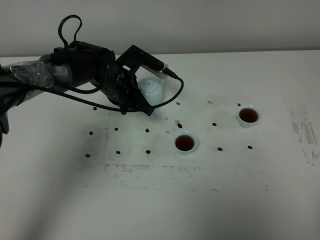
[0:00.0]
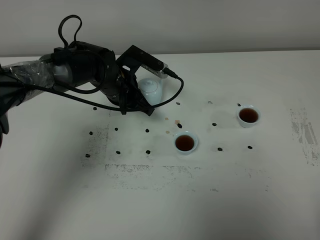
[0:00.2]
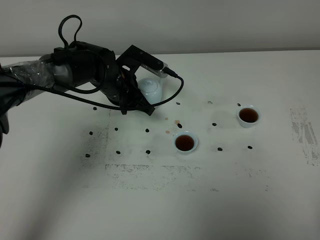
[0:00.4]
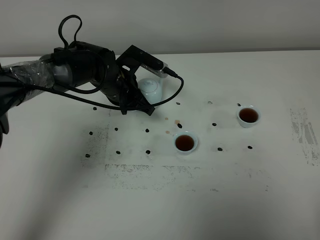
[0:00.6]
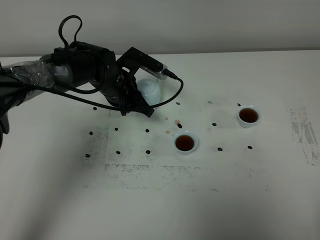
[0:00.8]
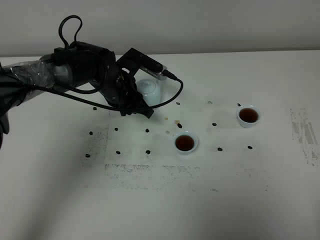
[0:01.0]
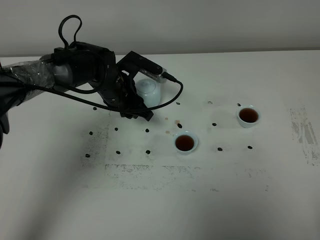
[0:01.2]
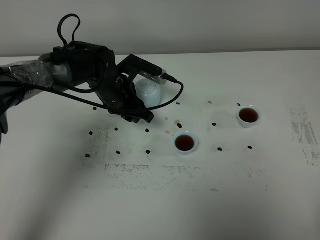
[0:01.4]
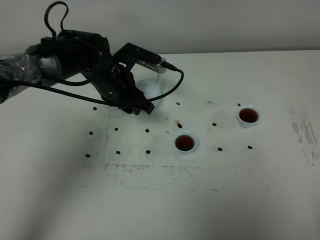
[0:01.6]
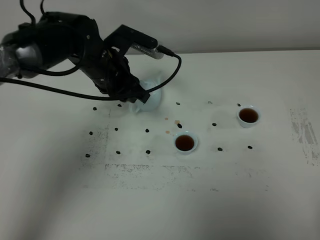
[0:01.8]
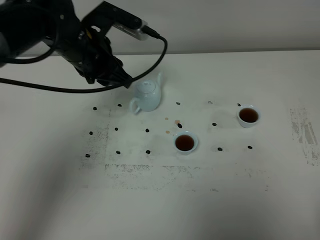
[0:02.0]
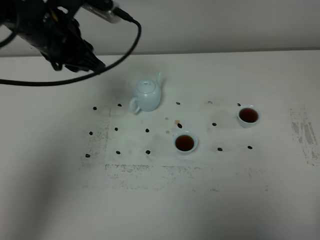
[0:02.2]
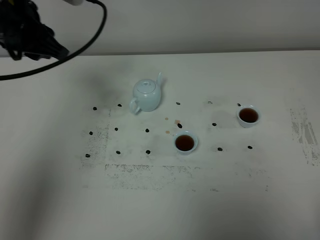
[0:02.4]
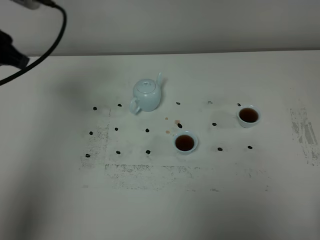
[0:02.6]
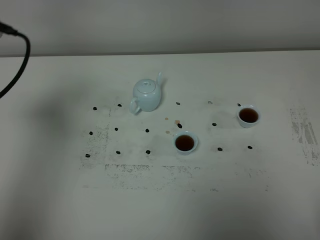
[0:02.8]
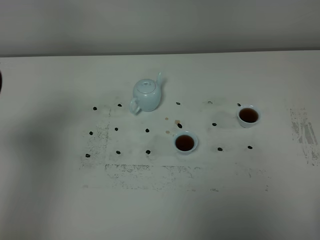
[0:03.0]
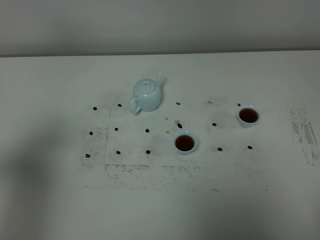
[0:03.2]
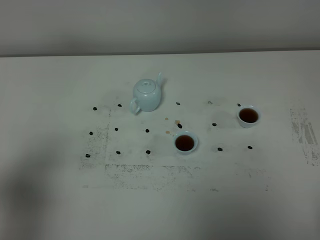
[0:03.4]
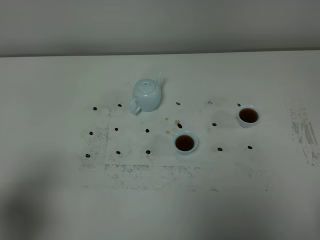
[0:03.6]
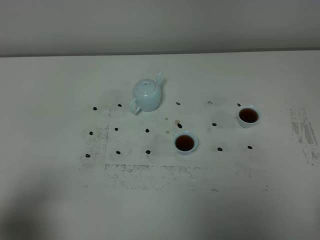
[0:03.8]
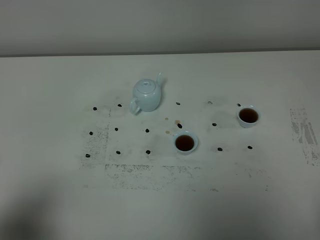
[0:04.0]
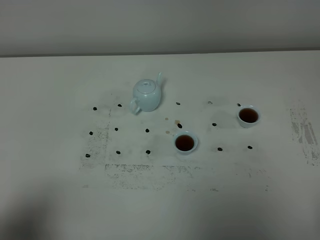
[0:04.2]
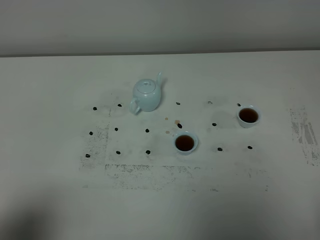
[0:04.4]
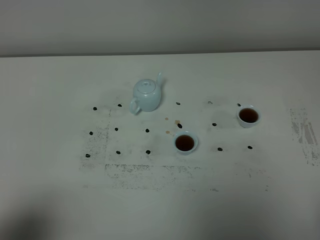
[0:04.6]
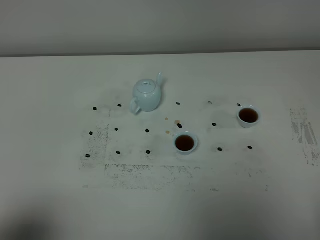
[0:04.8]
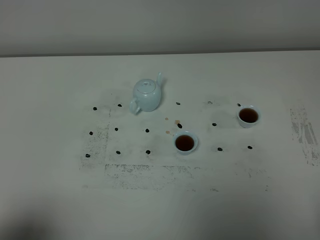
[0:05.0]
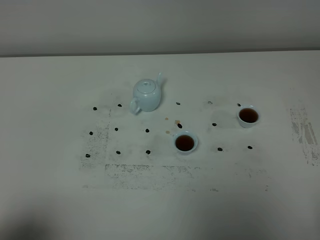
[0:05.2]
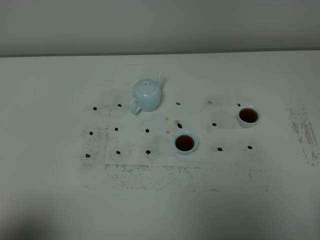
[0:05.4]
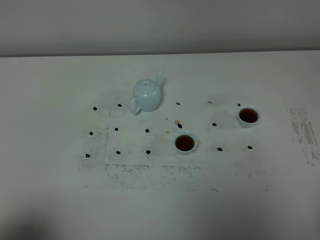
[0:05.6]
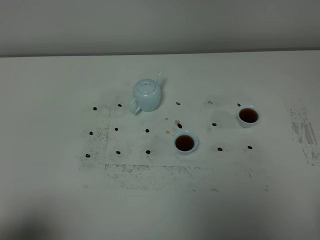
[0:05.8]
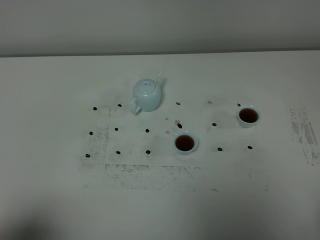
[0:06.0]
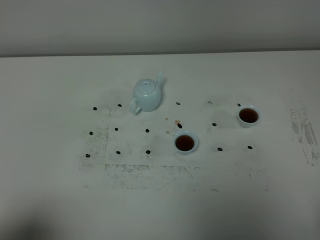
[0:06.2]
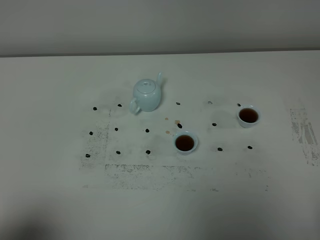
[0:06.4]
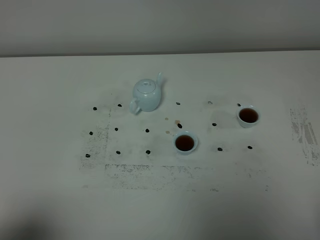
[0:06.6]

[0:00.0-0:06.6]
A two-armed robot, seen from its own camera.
Task of the whole recording: grasp the blue porcelain teapot and pour the tea into the two blue porcelain teacups one by one, put the blue porcelain teapot back in its original place.
0:00.0 to 0:01.6: The left gripper opens up.
0:01.6 to 0:03.2: The left gripper goes roughly 35 cm backward, to the left and upward.
0:03.2 to 0:05.0: The left gripper is displaced backward by roughly 15 cm.
0:05.0 to 0:06.6: Both grippers stay about where they are.

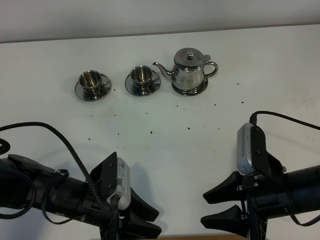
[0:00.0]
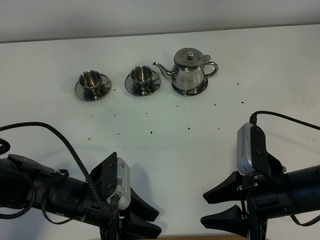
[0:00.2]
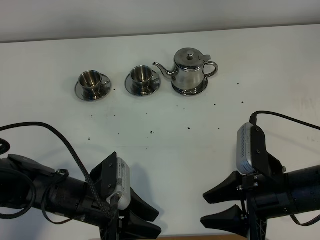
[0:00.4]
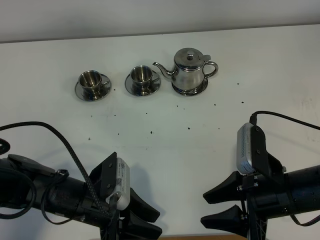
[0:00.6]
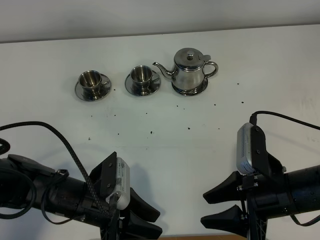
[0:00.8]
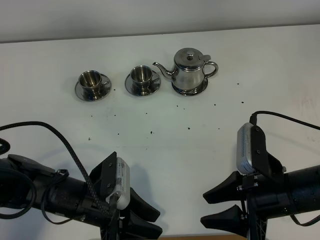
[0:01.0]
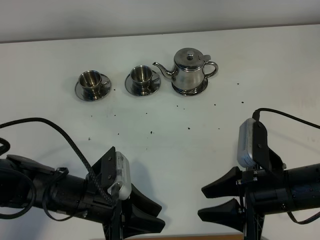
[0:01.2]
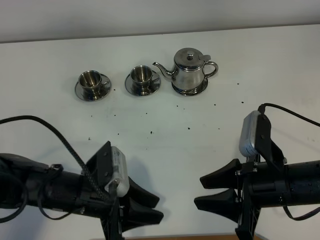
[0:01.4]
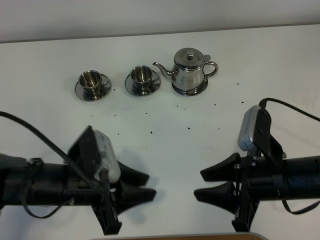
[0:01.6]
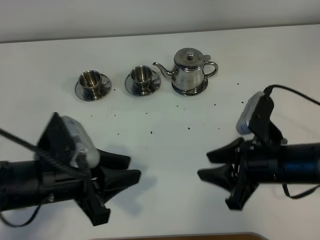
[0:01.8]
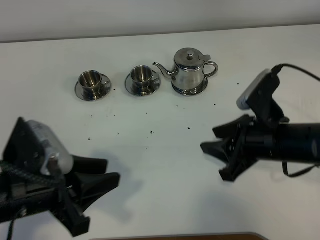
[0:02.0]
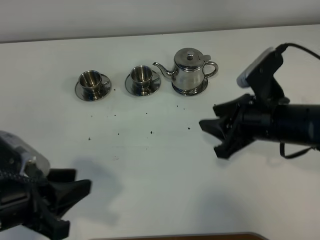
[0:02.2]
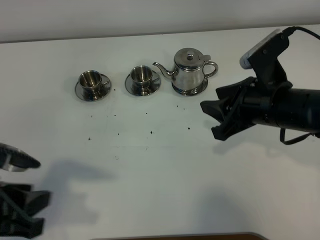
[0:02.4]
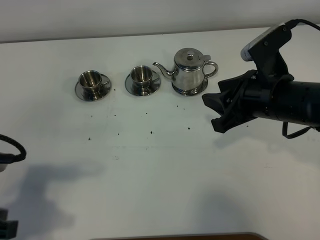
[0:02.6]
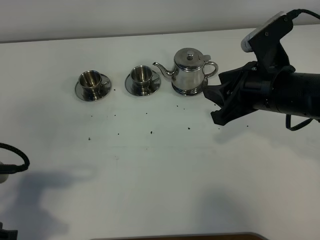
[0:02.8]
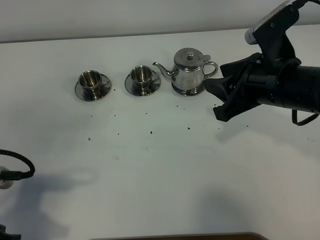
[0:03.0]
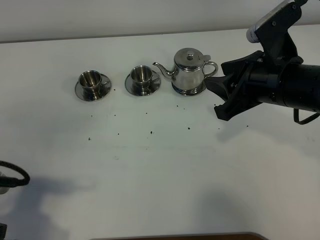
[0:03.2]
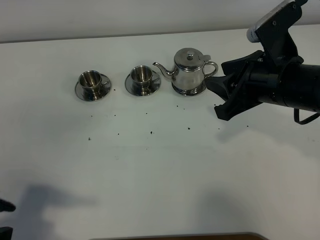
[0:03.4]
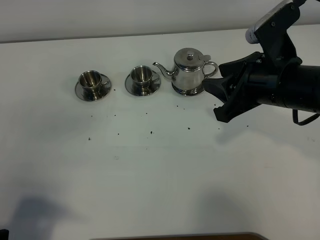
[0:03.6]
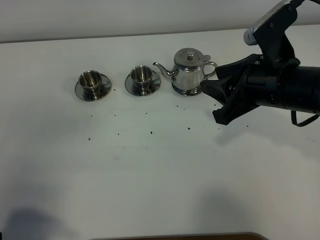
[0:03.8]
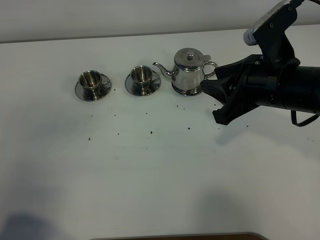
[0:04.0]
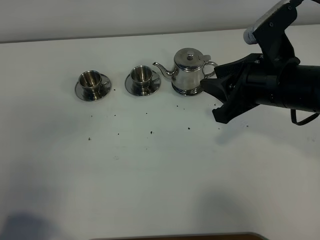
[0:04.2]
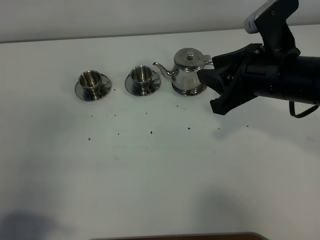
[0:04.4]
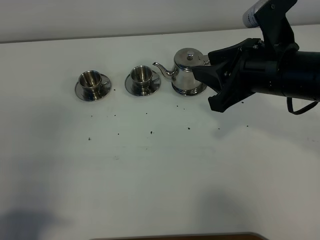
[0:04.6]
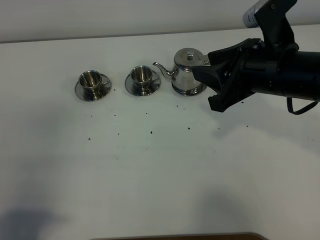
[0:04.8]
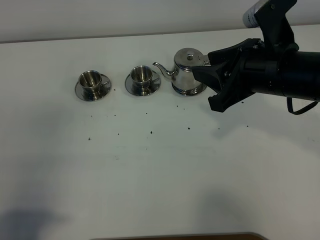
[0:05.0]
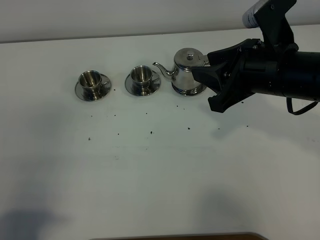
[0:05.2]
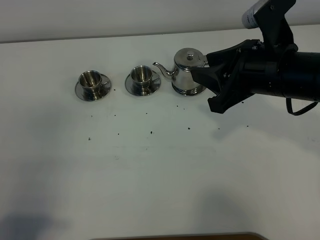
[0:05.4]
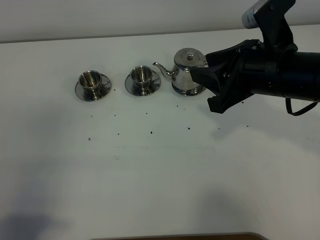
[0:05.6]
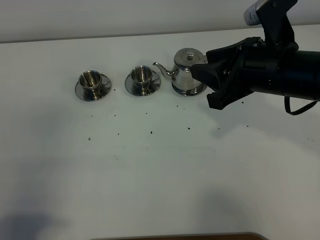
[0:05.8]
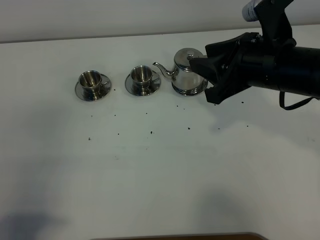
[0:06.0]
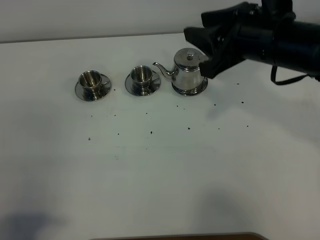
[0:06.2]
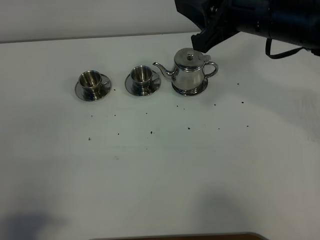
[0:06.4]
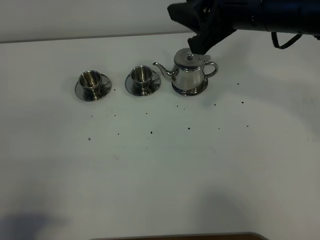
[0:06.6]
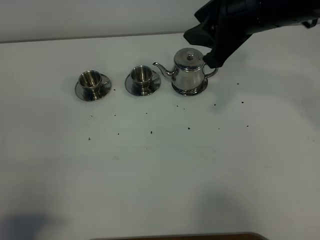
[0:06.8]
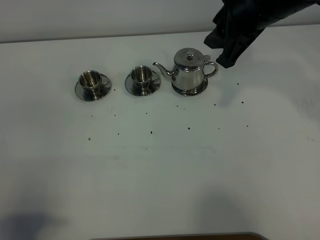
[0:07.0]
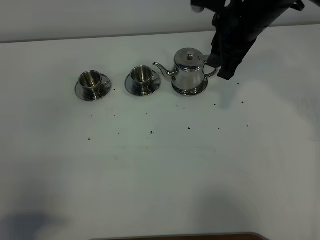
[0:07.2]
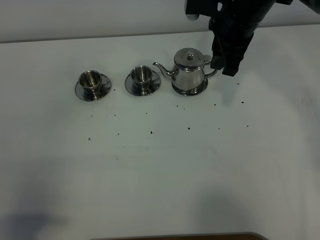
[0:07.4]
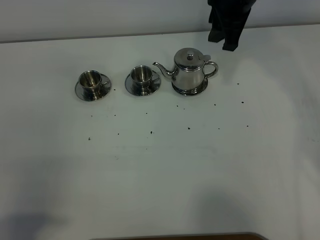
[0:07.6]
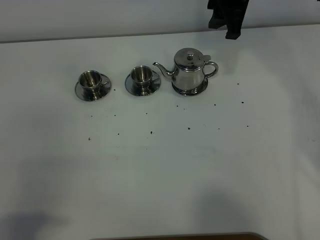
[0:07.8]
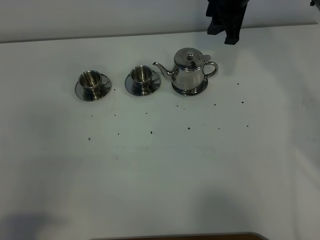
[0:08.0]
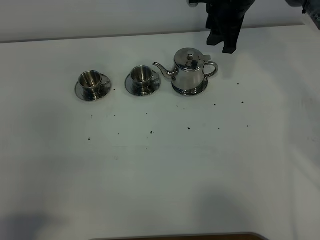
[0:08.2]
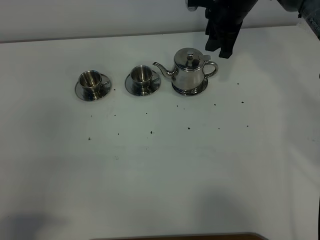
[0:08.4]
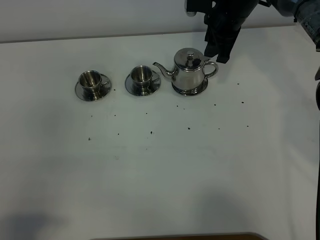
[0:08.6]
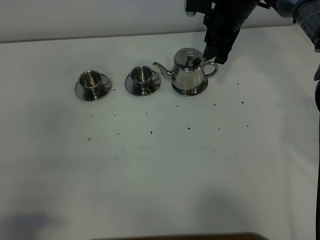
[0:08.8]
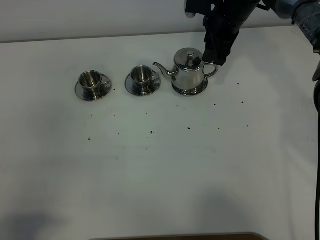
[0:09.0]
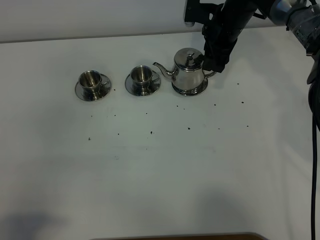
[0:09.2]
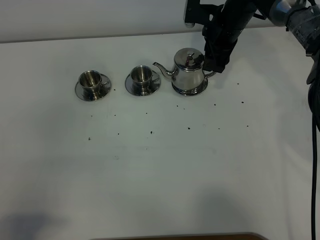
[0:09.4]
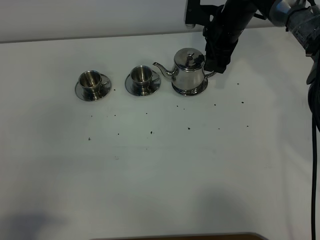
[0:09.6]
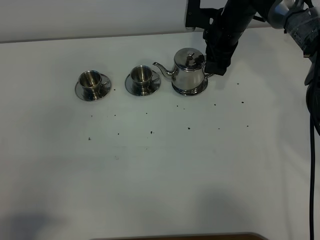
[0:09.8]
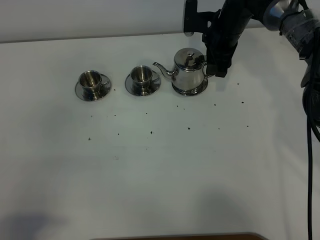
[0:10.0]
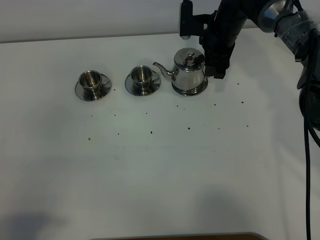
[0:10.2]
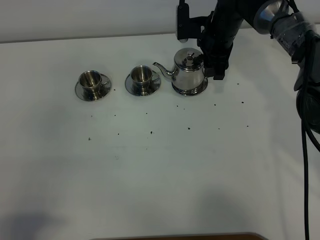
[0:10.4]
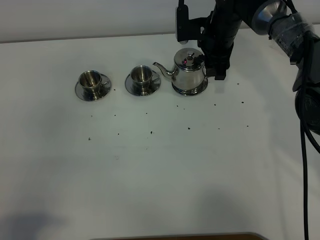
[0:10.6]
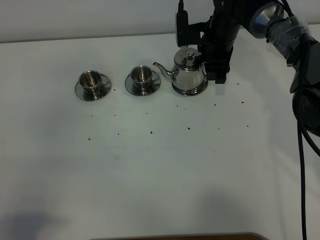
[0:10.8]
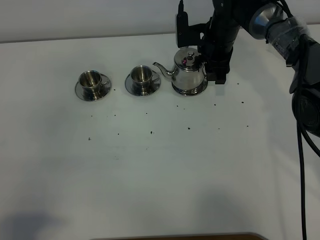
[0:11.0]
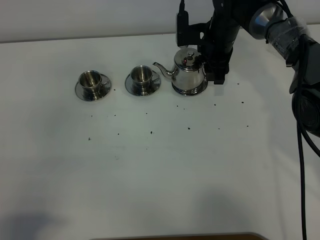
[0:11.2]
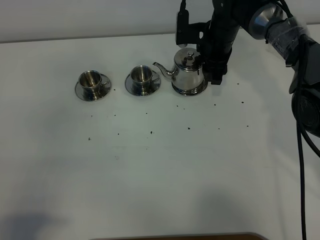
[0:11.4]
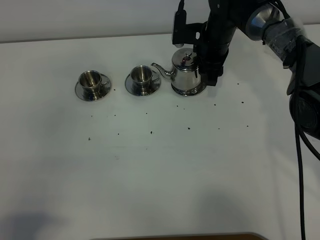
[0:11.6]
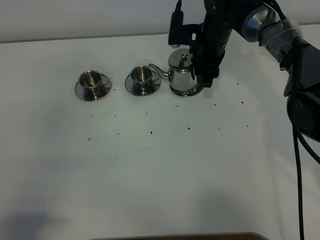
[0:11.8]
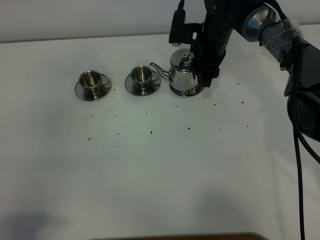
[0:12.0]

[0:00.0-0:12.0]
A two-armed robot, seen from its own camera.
Task of the whole recording: grasp the stainless steel teapot and pour the tea into the two stainless steel teacups one by one, put the stainless steel teapot back in its original place.
0:00.0 to 0:01.6: The left gripper shifts some 5 cm upward.
0:01.6 to 0:03.0: The left gripper is displaced to the left, backward and upward by about 15 cm. The right gripper shifts approximately 15 cm upward and forward.
0:03.0 to 0:04.4: The left gripper shifts roughly 10 cm backward.
0:04.4 to 0:06.0: The grippers move only a little.
0:06.0 to 0:07.6: The right gripper moves forward, some 15 cm.
0:07.6 to 0:09.0: The right gripper goes roughly 10 cm downward.
0:09.0 to 0:12.0: The grippers make only small movements.

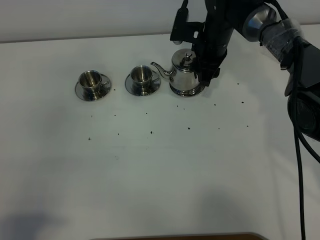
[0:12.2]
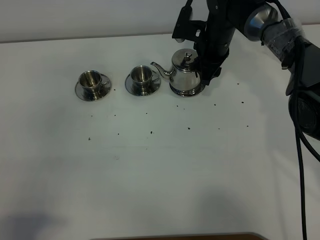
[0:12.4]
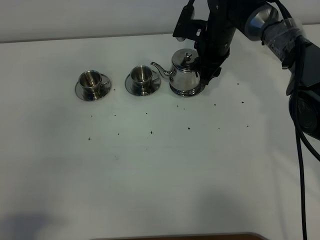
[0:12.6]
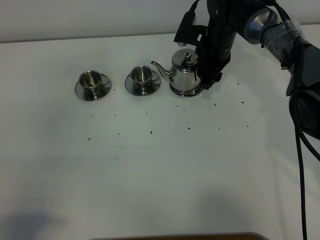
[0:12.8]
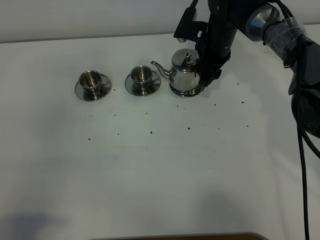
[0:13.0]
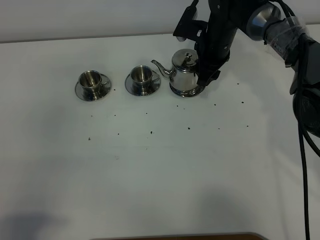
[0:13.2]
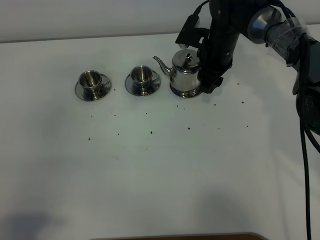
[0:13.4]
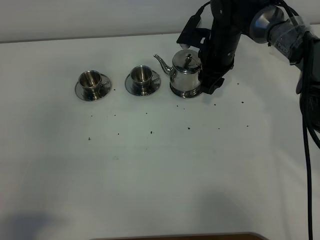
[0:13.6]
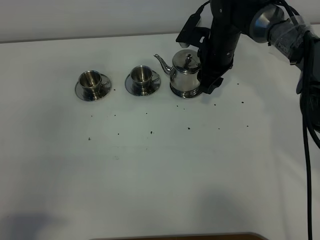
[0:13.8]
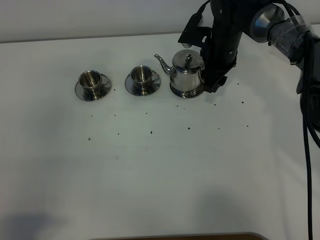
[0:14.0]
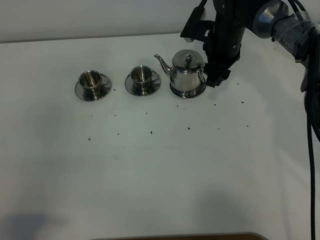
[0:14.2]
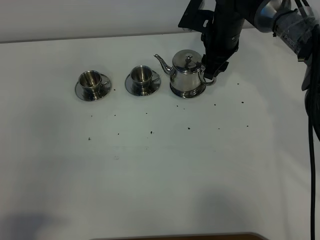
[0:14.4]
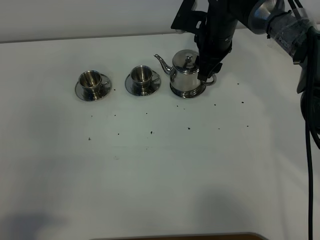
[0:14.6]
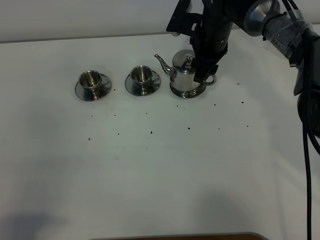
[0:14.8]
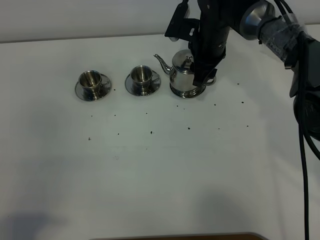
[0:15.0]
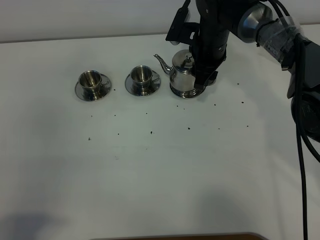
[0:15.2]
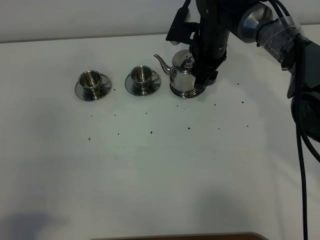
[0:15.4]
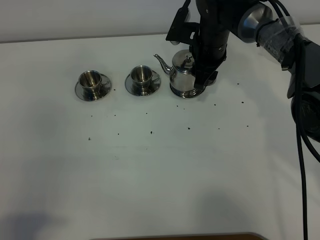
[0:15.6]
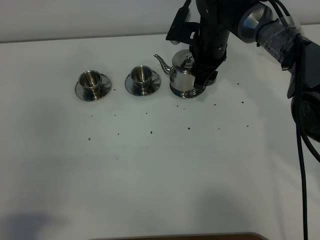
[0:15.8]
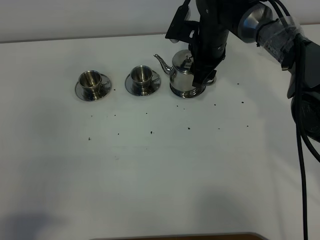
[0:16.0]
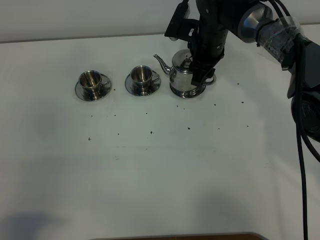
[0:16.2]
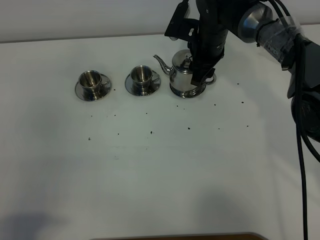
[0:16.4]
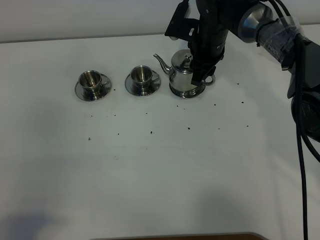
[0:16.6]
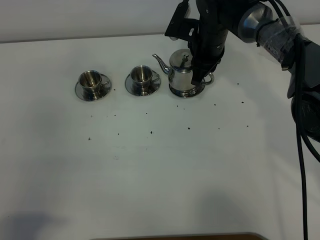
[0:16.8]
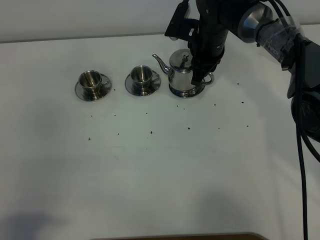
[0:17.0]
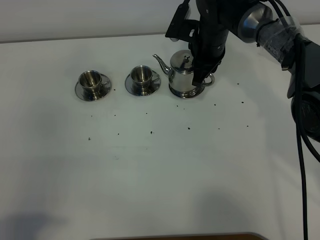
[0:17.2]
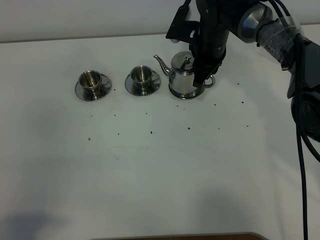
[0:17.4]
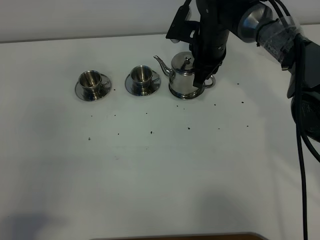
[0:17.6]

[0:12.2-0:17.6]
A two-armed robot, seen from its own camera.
Task of the whole recording: grasp the stainless steel teapot and pour the tea into the two stainless steel teacups one by one, put the stainless steel teapot back in its original place.
0:12.2 to 0:15.0: The grippers make only small movements.
0:15.0 to 0:16.2: Both grippers stay put.
0:16.2 to 0:17.6: The right gripper closes up.
